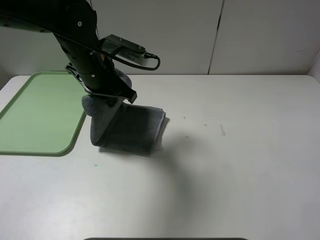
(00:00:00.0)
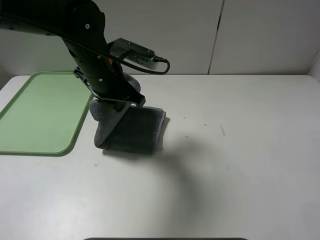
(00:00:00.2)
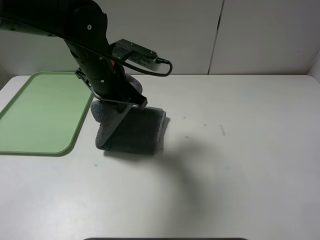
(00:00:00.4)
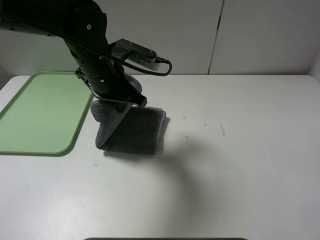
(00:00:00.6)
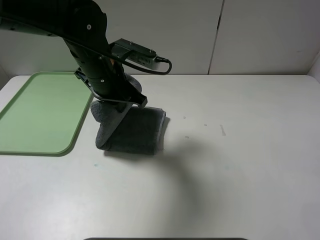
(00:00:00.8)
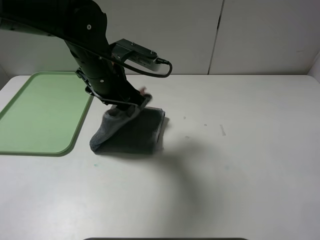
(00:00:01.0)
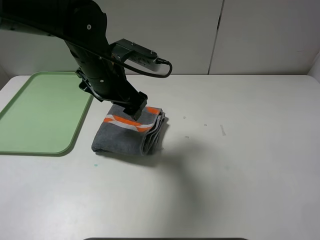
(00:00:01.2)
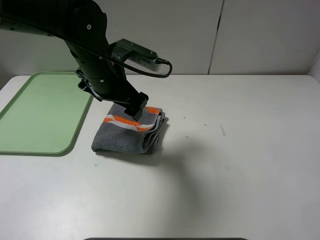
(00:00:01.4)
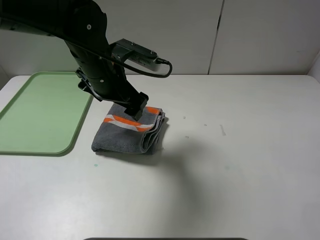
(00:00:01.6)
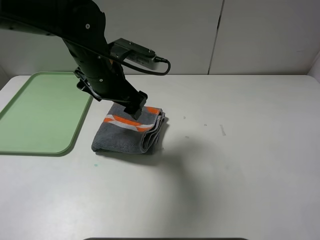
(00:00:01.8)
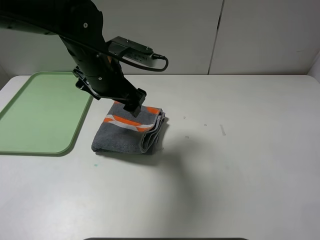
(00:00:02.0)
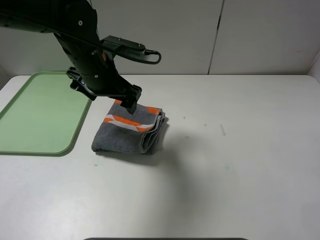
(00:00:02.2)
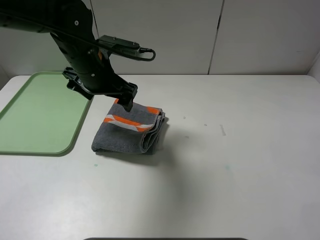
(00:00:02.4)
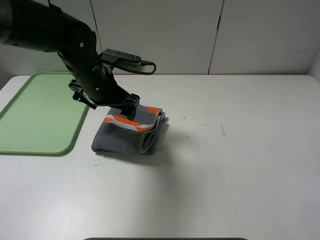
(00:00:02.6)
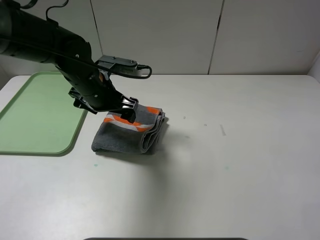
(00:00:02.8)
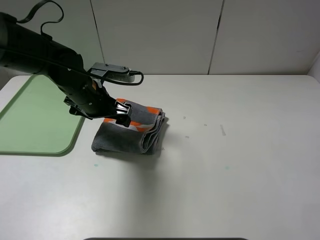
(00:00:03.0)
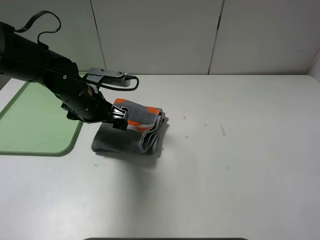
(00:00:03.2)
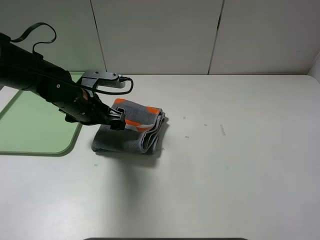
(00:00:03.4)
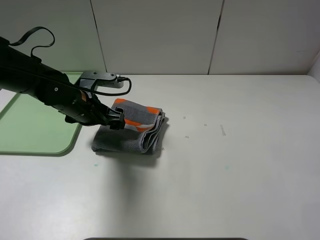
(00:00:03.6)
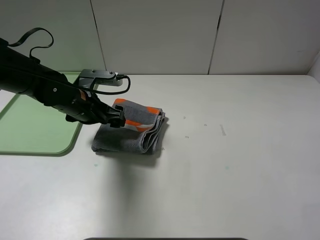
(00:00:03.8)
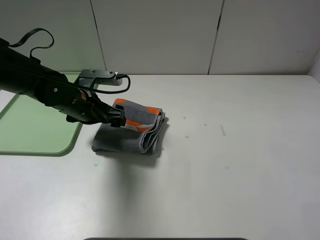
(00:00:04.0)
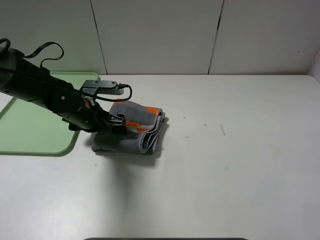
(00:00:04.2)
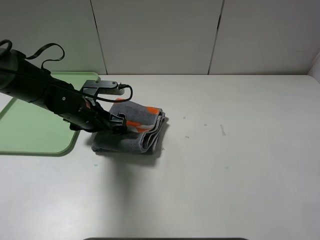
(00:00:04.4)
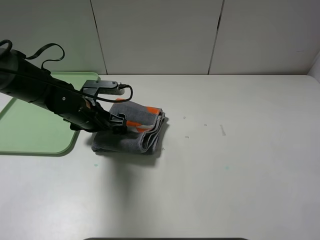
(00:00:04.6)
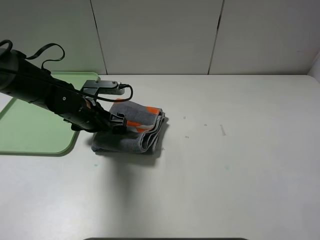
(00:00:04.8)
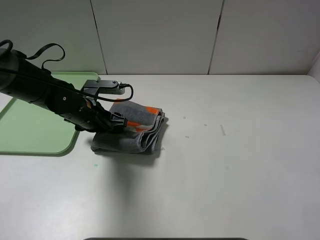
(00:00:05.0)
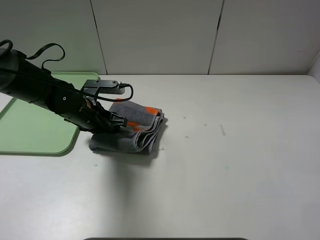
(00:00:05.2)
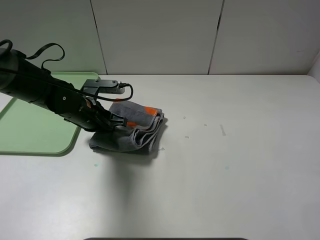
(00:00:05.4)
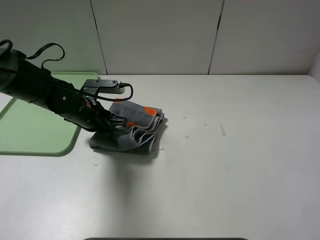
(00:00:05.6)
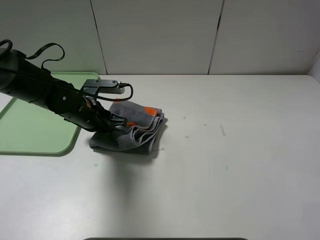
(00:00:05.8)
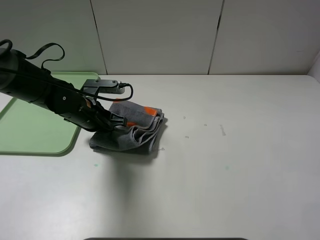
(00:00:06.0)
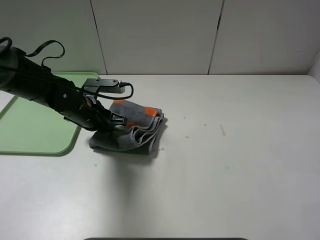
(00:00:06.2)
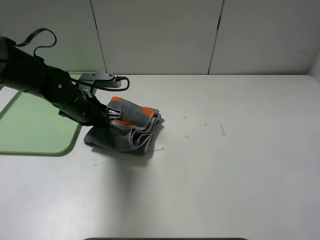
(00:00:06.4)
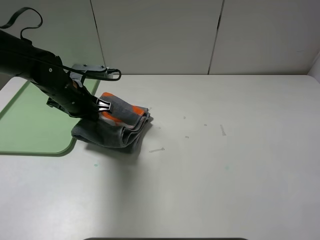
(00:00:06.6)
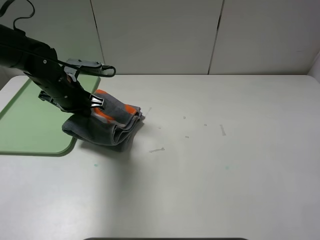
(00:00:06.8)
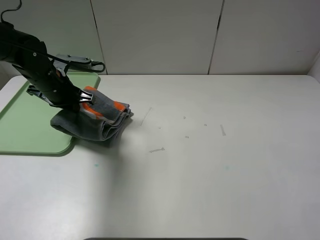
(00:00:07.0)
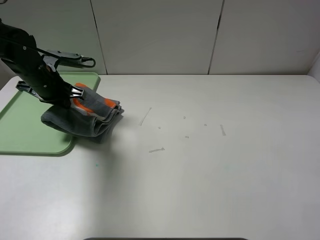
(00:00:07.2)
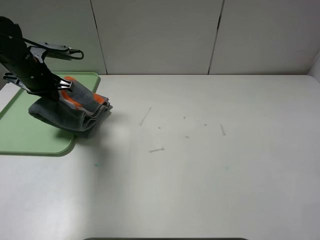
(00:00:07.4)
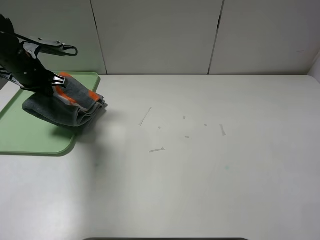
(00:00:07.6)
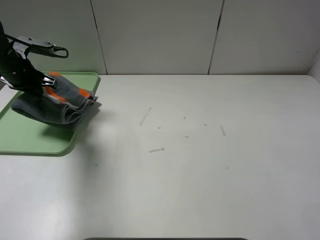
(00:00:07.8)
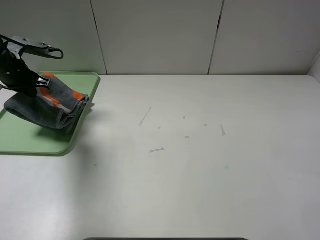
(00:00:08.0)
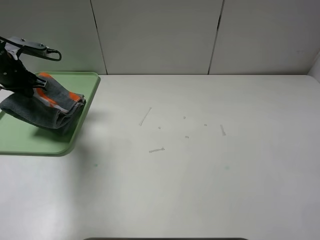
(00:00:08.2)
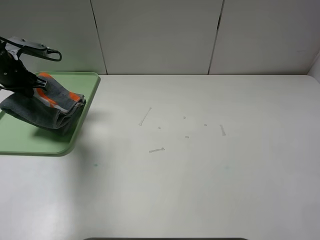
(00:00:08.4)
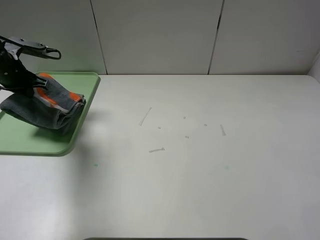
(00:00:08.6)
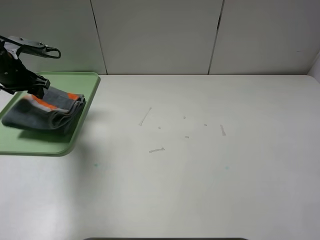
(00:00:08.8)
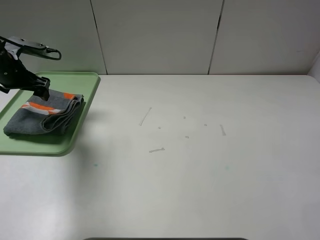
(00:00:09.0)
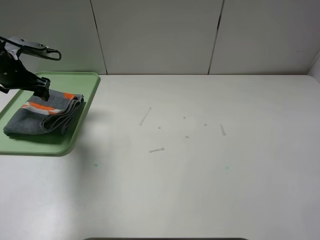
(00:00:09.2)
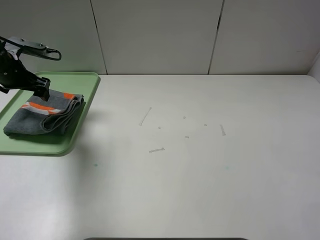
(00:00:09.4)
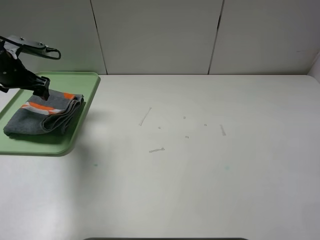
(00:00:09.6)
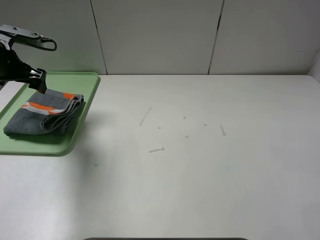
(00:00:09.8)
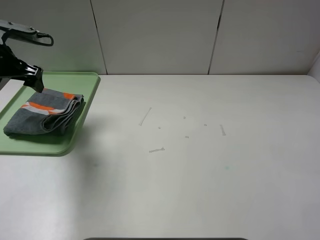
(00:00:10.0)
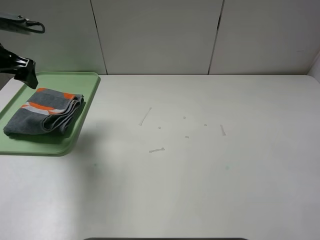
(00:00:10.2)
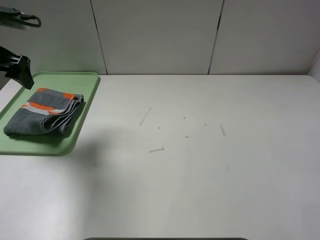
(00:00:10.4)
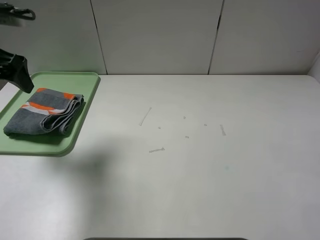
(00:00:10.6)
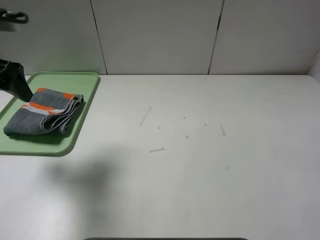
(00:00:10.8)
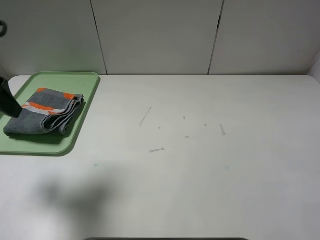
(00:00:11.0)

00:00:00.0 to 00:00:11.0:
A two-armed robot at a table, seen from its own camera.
Step, 00:00:01.4 to 00:00:08.8: Place the folded grey towel on the tray with the left gripper.
00:00:00.0 to 00:00:01.6: The left gripper opens its fingers.
00:00:01.6 to 00:00:03.2: The left gripper travels downward and to the left by some 10 cm.
00:00:03.2 to 00:00:04.8: The grippers move only a little.
00:00:04.8 to 00:00:06.2: The left gripper closes up.
00:00:06.2 to 00:00:07.8: The left gripper is displaced to the left, upward and forward by some 20 cm.
00:00:07.8 to 00:00:09.4: The left gripper opens its fingers.
00:00:09.4 to 00:00:11.0: The left gripper goes roughly 20 cm backward and upward.

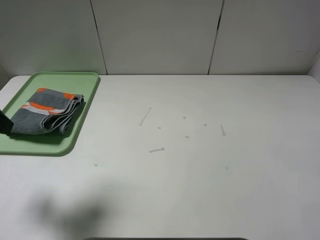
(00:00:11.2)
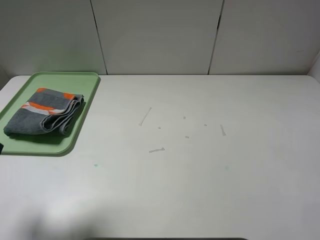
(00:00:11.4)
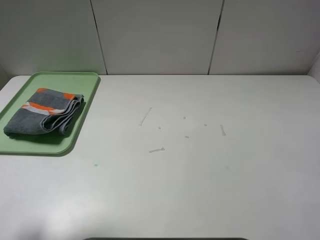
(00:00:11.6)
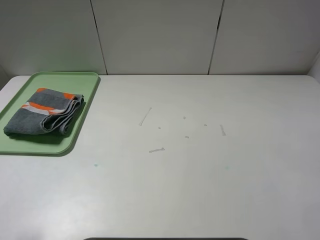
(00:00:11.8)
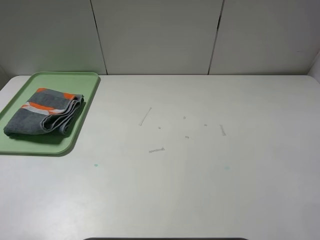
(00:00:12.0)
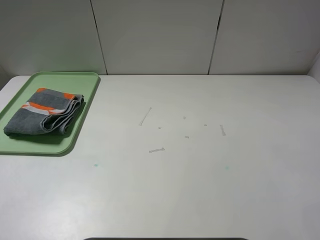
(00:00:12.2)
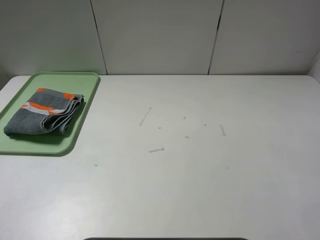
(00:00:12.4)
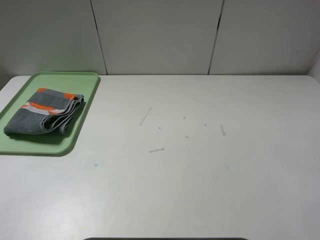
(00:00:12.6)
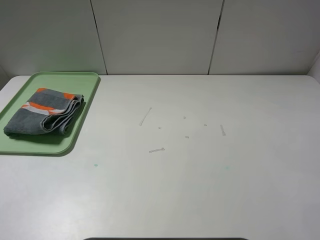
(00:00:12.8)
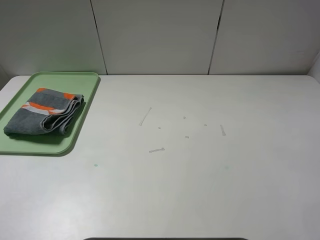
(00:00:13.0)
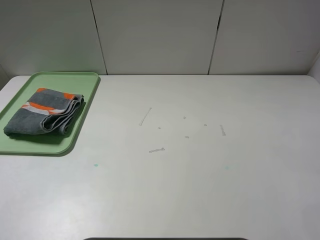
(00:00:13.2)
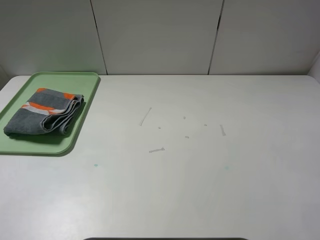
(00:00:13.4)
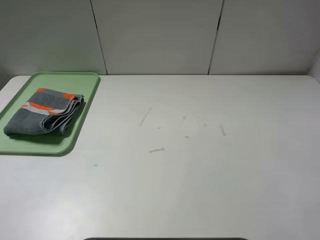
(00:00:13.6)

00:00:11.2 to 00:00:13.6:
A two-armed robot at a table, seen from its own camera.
00:00:11.2 to 00:00:12.4: The left gripper goes about 15 cm backward.
00:00:12.4 to 00:00:13.6: Both grippers stay about where they are.
